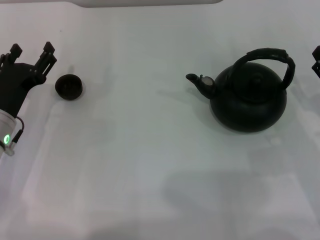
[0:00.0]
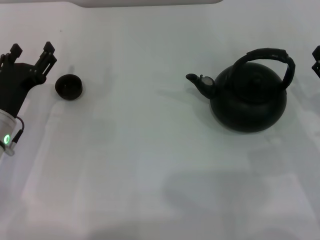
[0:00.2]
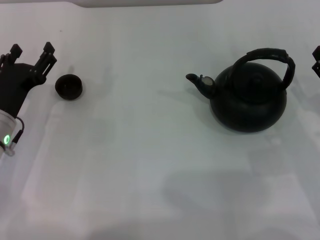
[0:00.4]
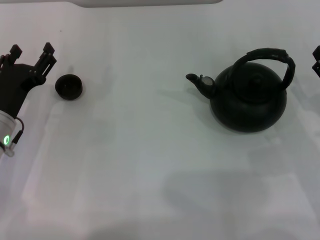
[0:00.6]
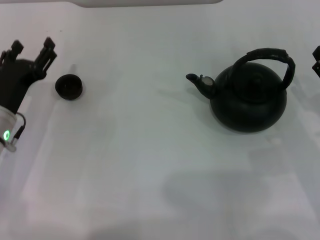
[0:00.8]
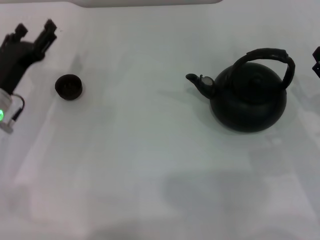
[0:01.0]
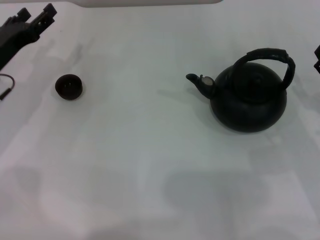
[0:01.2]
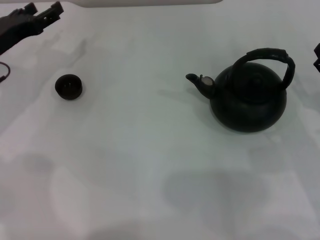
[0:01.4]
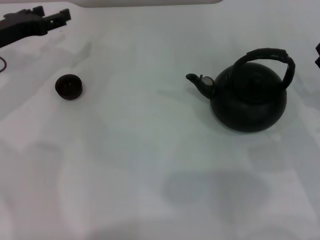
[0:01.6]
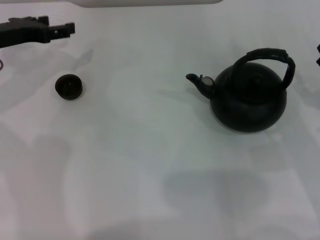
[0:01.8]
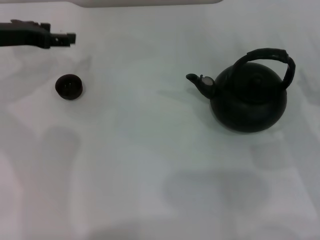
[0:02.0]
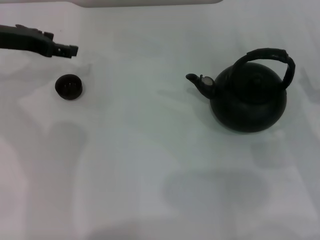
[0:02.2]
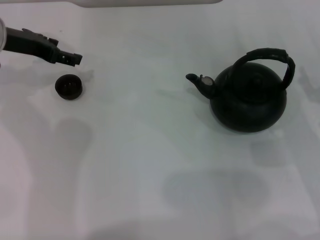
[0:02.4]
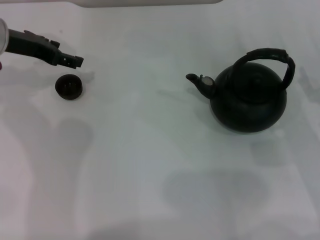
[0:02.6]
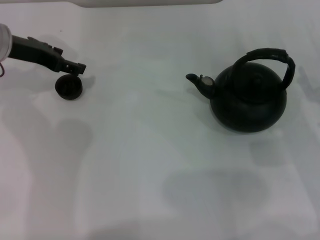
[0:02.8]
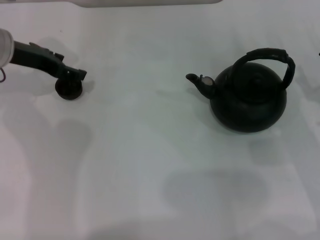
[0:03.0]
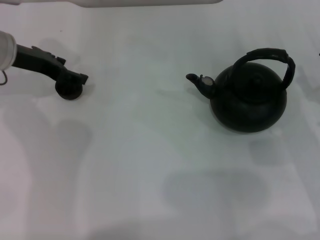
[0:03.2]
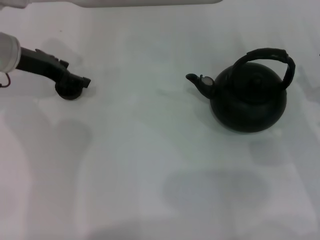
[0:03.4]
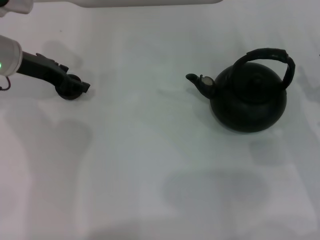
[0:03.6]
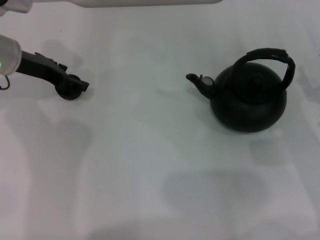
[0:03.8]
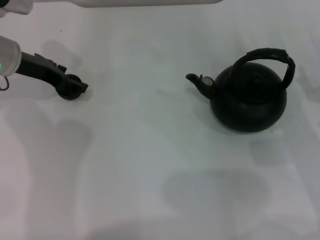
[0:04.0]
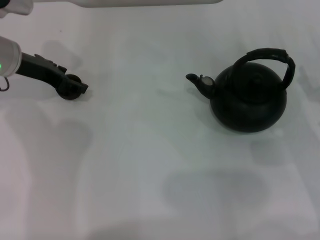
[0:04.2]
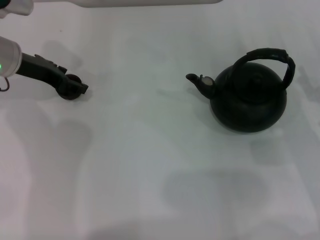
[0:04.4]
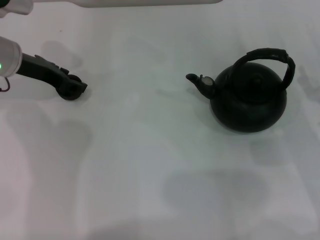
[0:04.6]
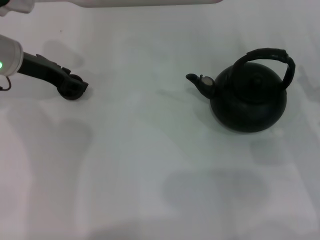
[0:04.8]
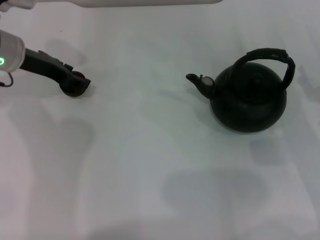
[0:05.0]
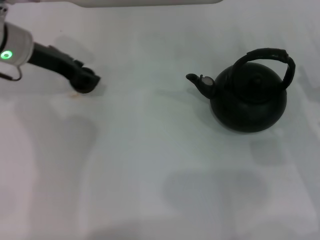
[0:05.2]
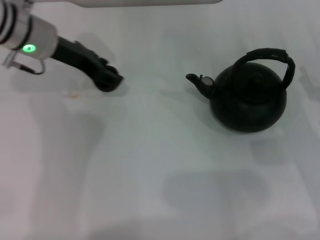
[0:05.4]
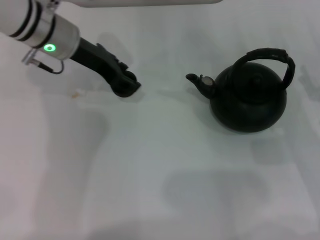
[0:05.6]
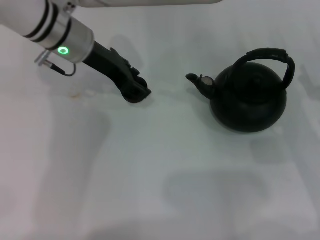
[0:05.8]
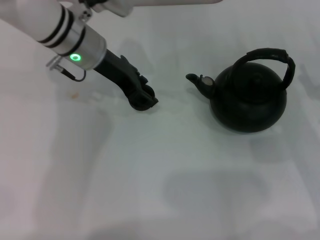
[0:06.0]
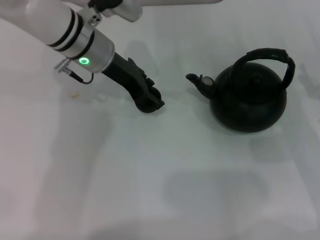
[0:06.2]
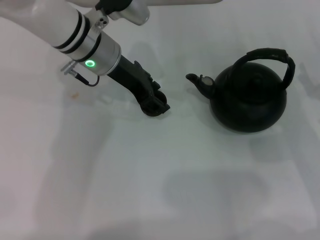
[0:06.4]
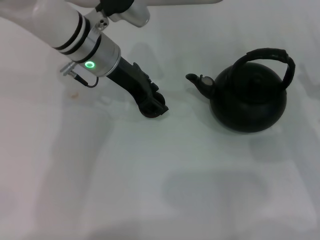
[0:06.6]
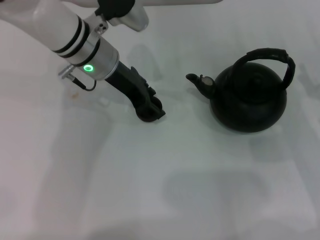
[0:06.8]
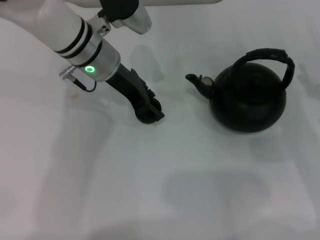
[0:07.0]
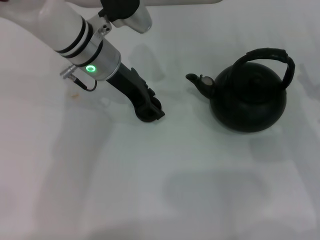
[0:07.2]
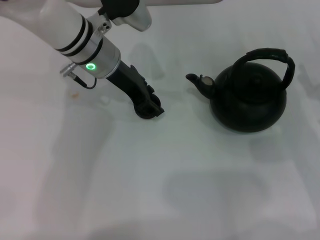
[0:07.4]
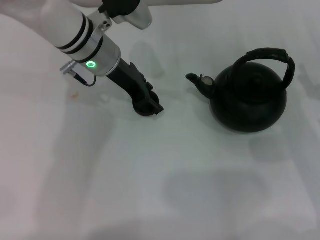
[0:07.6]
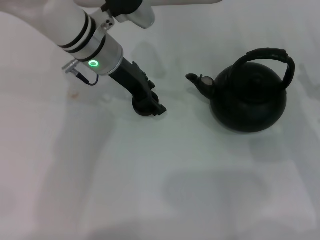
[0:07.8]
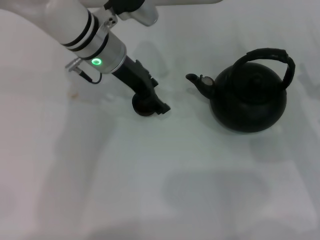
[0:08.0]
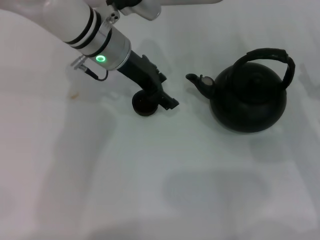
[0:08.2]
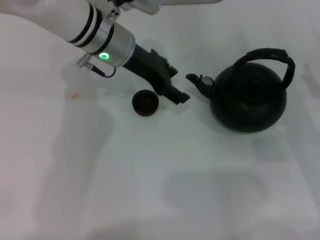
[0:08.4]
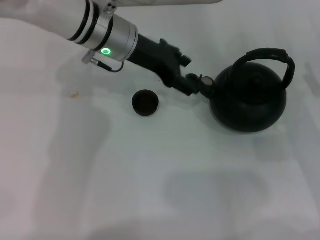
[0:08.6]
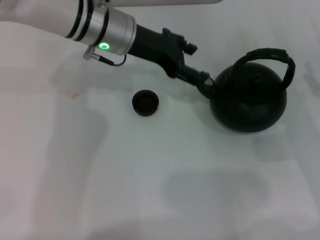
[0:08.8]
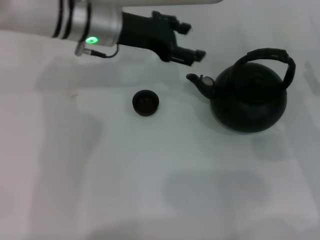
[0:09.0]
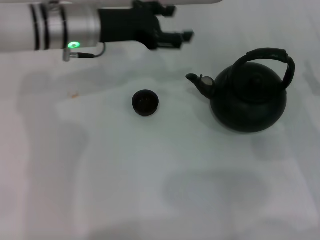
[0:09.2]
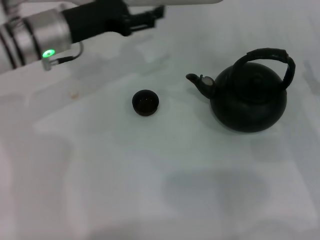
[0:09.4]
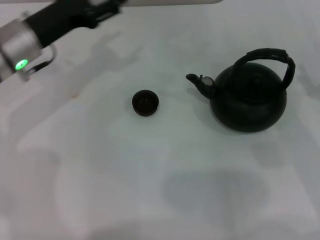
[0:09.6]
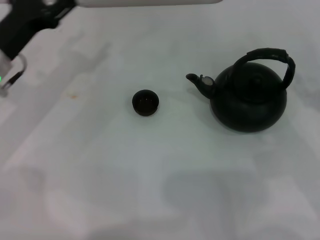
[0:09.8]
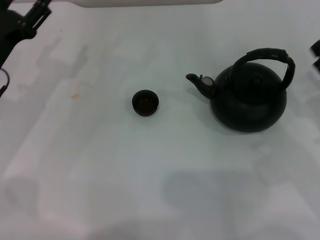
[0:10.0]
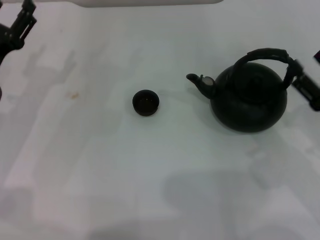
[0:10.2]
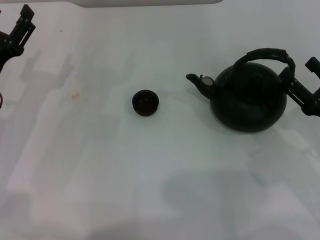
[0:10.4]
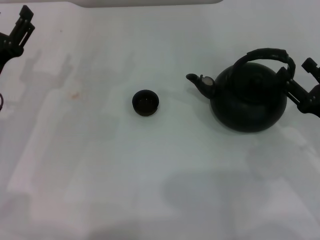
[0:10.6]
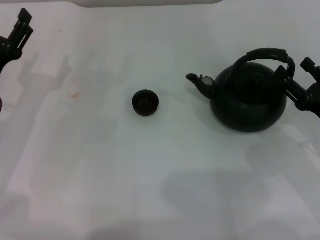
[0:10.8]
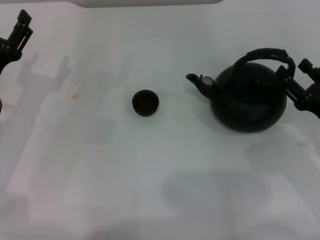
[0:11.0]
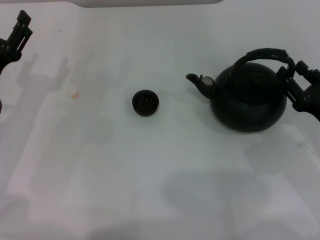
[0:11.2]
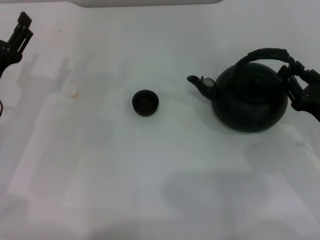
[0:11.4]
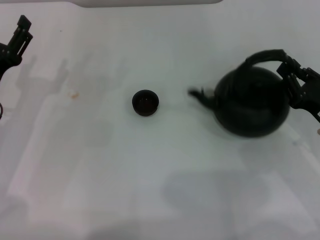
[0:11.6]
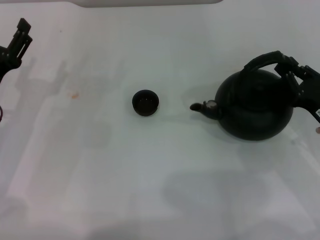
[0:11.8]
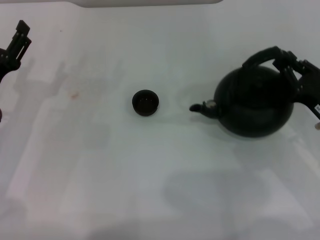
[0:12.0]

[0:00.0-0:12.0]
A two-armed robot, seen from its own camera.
Task of the whole recording: Grasp the handle of the teapot with one hand and pour tea into the teacup.
Step, 0:00.0 to 0:05.0: Pick up the teacup with the left gripper.
Step, 0:05.2 to 0:08.4: Place the teacup in the center of view with the left gripper.
0:00.0 to 0:01.6: The left gripper is displaced forward and upward by approximately 15 cm.
0:03.0 to 0:04.4: Both grippers stay about where they are.
0:04.4 to 0:06.0: The left gripper moves to the right, roughly 15 cm, and closes its fingers.
0:06.0 to 0:07.6: The grippers stay close to where they were, moving slightly.
0:07.6 to 0:09.0: The left gripper opens.
0:09.0 to 0:10.4: The left gripper is displaced to the left, backward and downward by about 20 cm.
0:10.4 to 0:12.0: The right gripper closes up.

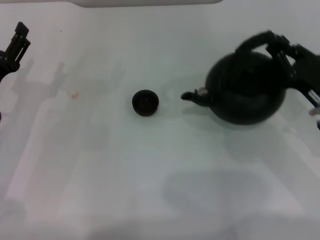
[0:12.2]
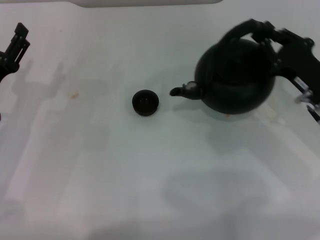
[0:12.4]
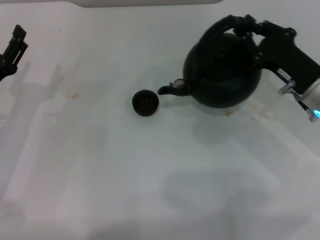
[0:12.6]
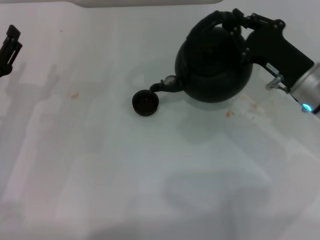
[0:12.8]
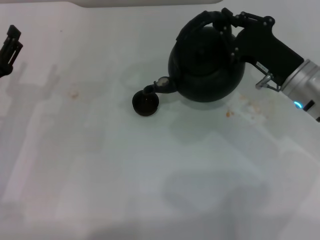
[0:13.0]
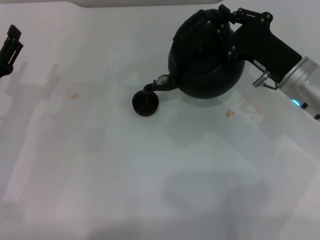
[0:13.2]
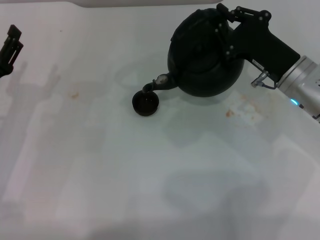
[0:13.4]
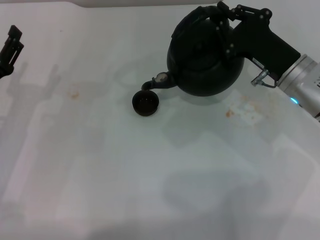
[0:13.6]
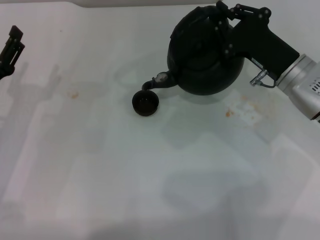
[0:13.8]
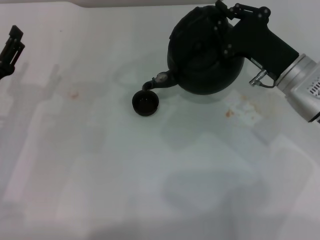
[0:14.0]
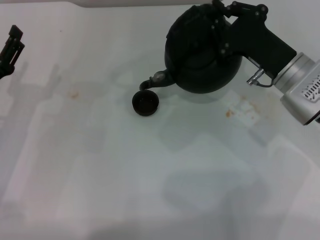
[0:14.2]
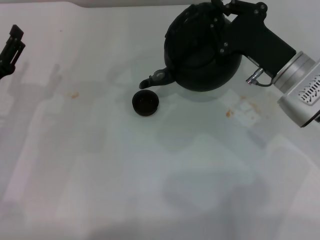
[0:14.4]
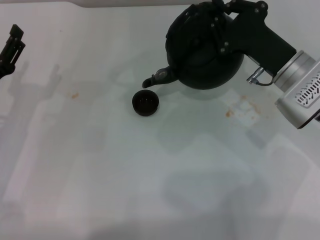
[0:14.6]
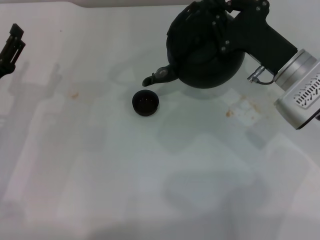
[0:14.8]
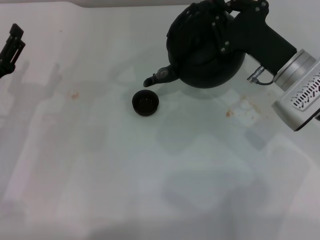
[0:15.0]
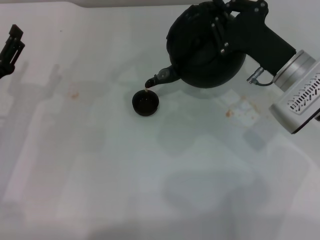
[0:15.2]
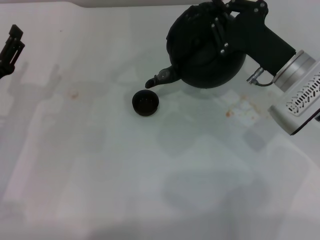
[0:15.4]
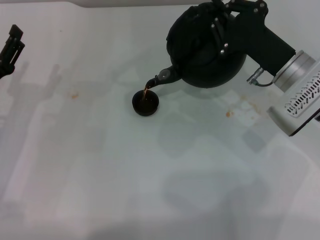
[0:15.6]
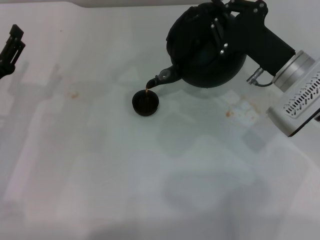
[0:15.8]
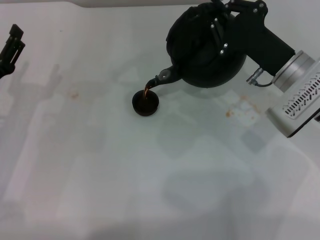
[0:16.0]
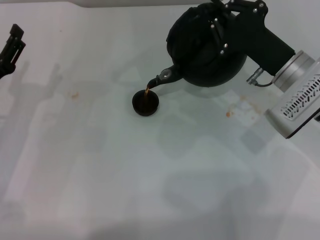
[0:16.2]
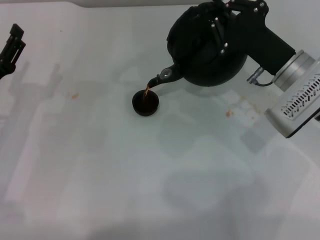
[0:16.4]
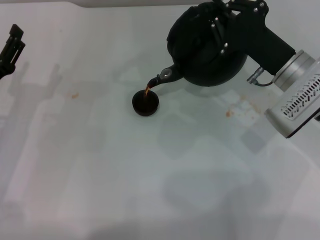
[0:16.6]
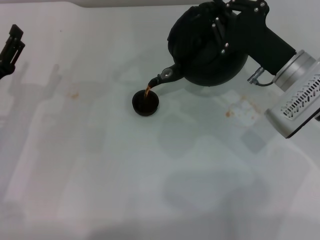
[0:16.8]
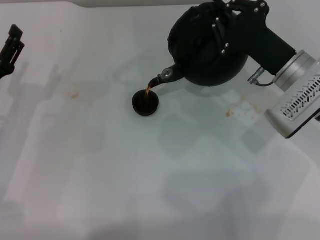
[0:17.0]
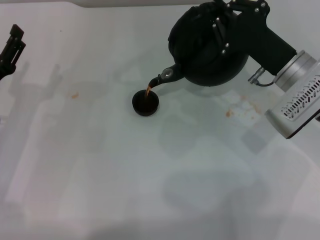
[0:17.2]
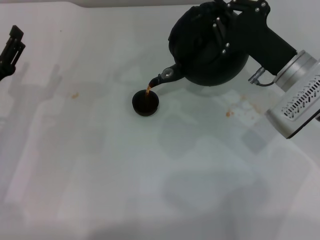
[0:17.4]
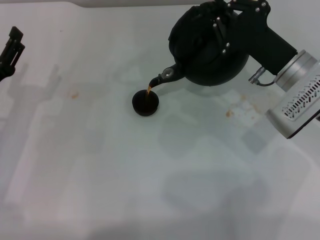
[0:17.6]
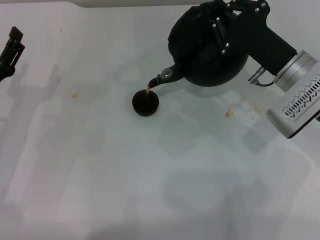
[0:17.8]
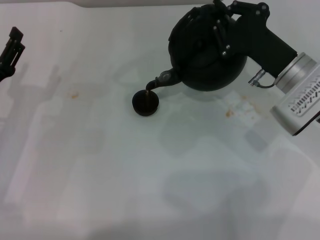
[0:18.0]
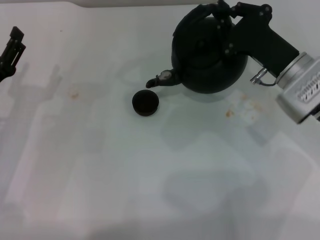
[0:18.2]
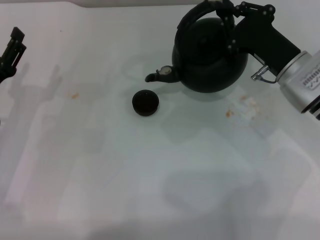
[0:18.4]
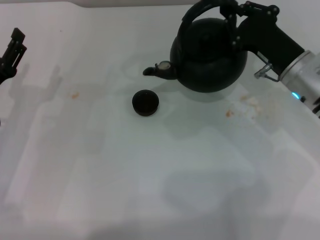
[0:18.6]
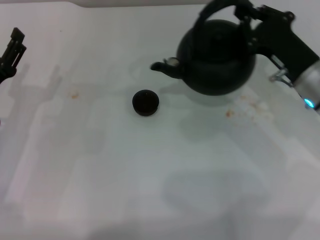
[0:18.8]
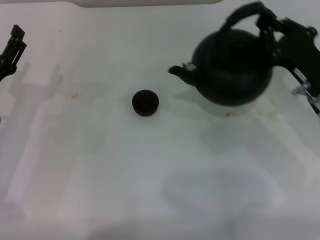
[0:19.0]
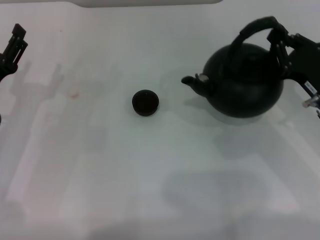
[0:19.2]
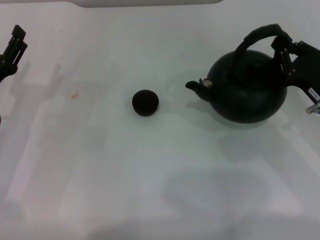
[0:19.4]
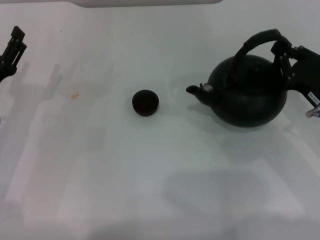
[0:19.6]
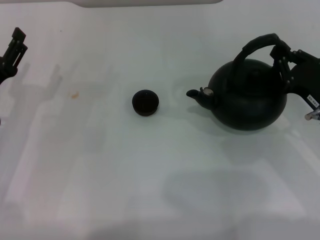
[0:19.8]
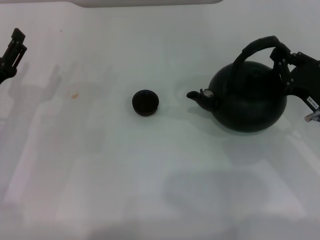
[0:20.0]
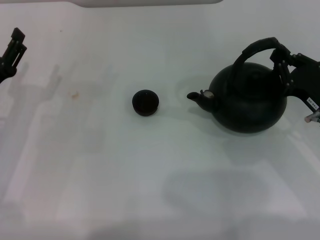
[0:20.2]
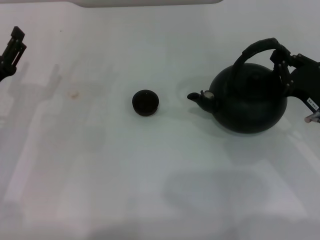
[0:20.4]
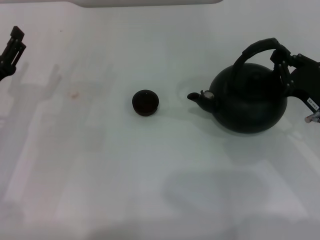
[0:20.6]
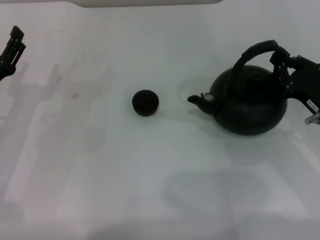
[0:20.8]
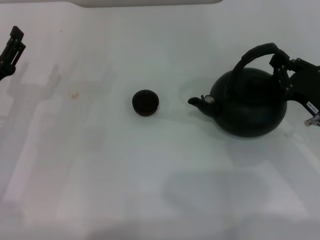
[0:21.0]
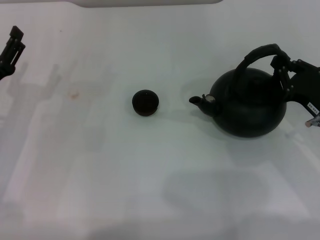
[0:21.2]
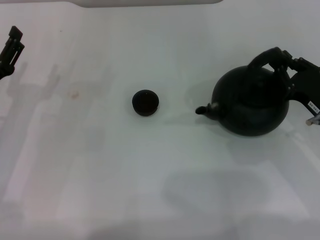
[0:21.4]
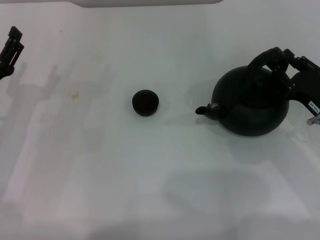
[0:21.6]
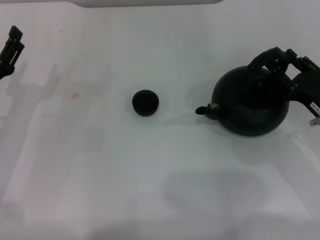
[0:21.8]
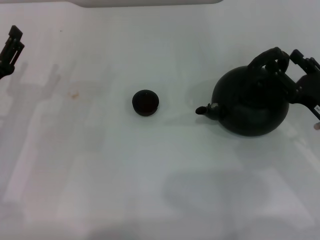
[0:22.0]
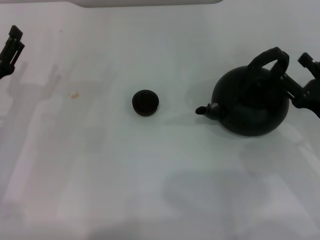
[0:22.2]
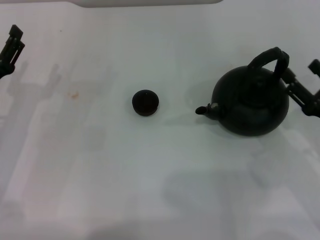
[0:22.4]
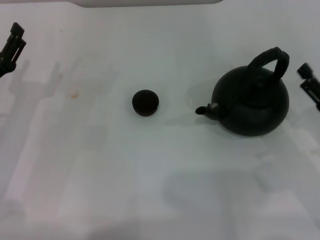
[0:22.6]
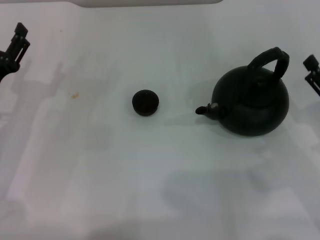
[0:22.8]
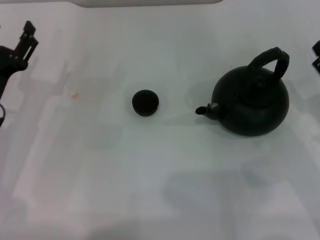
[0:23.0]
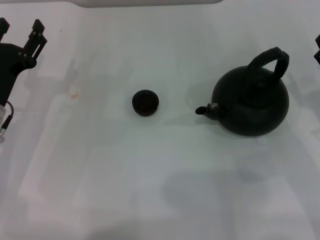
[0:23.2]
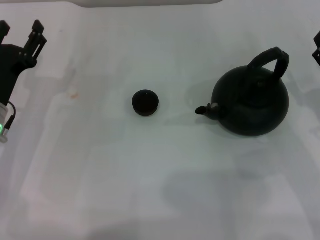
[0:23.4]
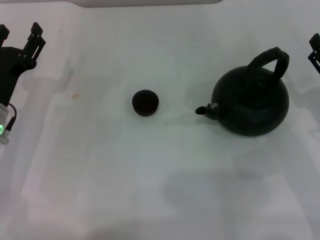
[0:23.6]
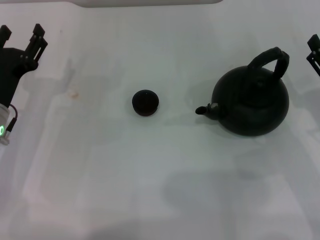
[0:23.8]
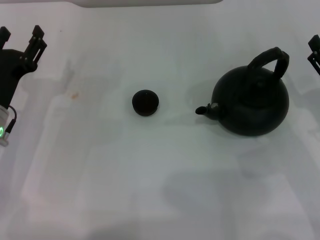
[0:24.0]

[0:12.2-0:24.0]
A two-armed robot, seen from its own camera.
Task of the whole recording: Grasp the handle of the teapot with one hand and pour tea into the teacup.
Step, 0:12.6 to 0:18.4: Pour tea into the teacup with the right gripper.
Step, 0:18.6 to 0:22.4: Put down the teapot with the right gripper.
0:12.2 to 0:13.6: The right gripper shifts approximately 10 cm to the left and forward.
0:13.6 to 0:15.2: The grippers make only small movements.
0:15.2 to 0:18.2: The grippers stay close to where they were, moving slightly.
0:18.2 to 0:19.6: The right gripper heads to the right and backward, covering some 10 cm.
0:19.6 to 0:21.0: Both grippers stay put.
0:21.0 to 0:22.6: The right gripper ends up approximately 5 cm from where it was, and opens up.
0:22.6 to 0:24.0: There are only small adjustments of the grippers.
